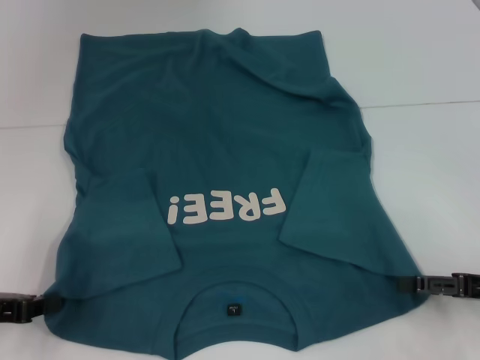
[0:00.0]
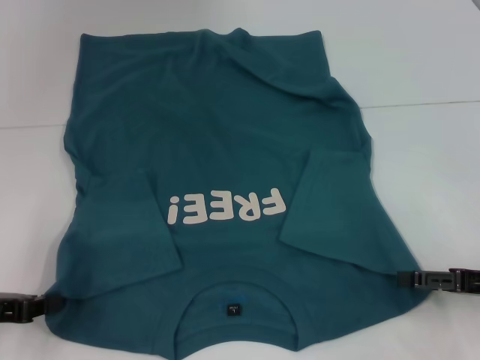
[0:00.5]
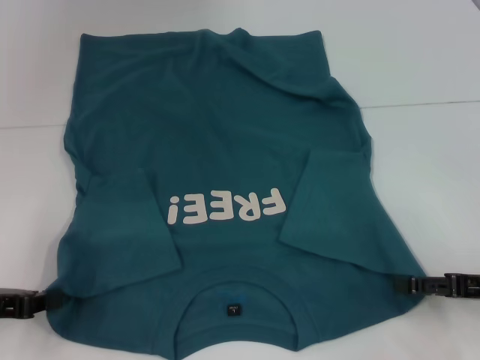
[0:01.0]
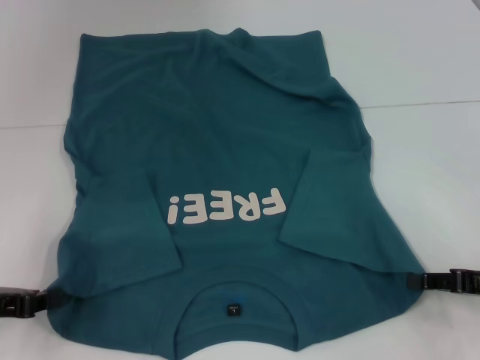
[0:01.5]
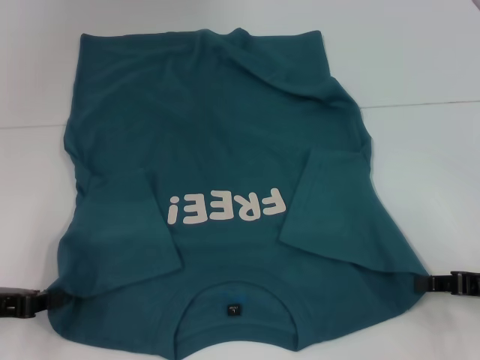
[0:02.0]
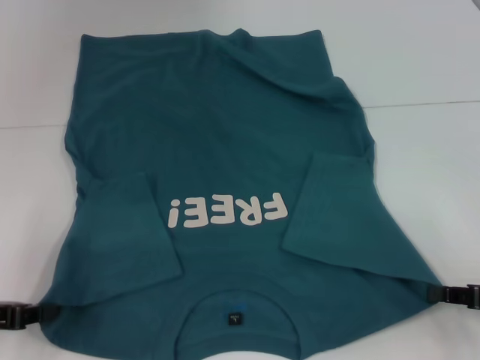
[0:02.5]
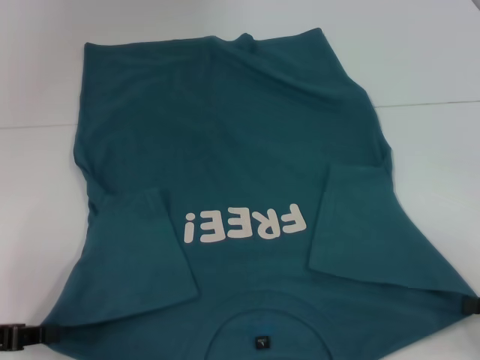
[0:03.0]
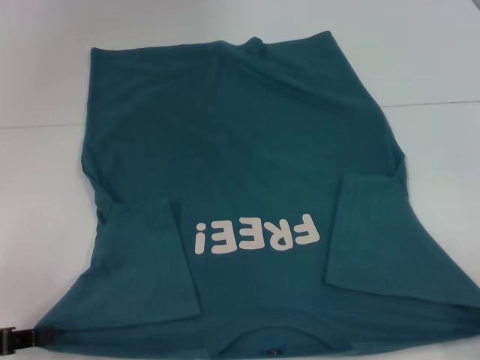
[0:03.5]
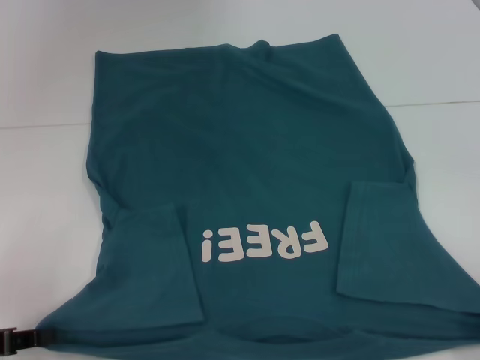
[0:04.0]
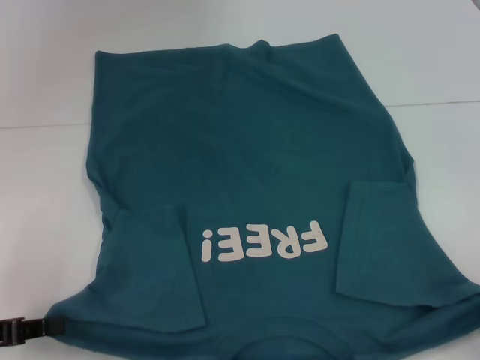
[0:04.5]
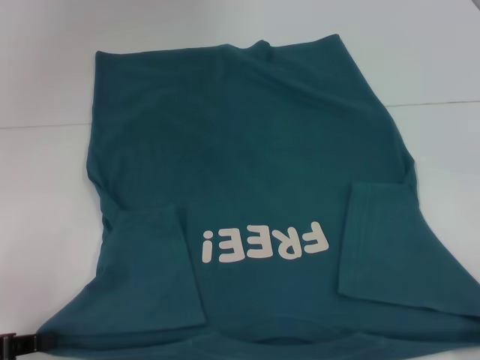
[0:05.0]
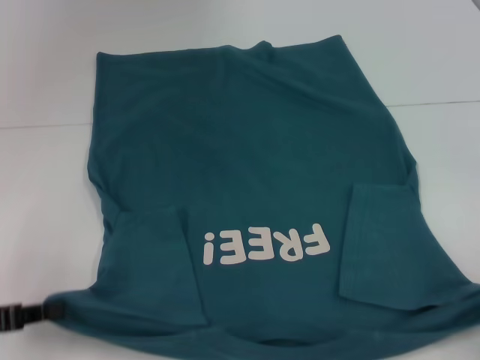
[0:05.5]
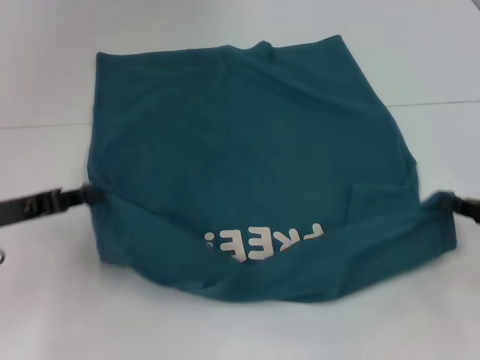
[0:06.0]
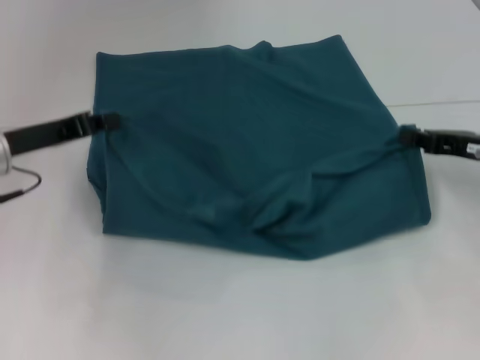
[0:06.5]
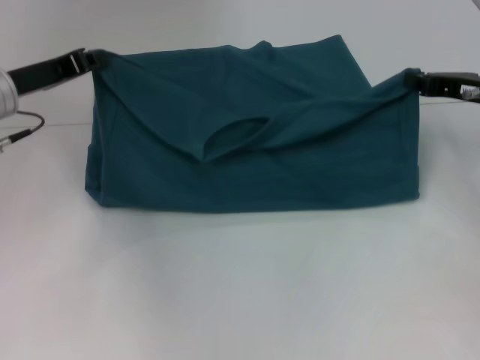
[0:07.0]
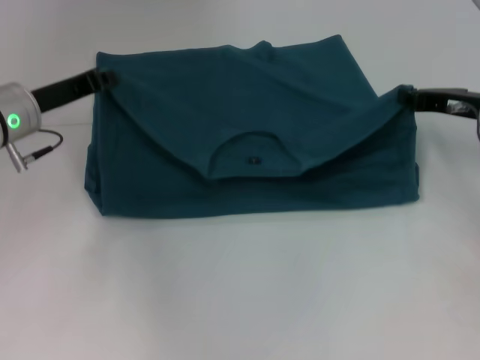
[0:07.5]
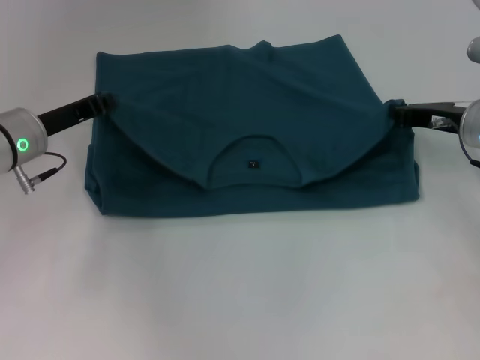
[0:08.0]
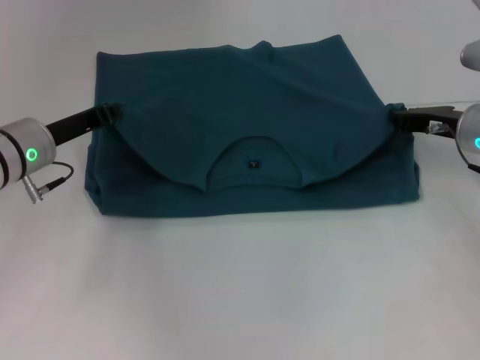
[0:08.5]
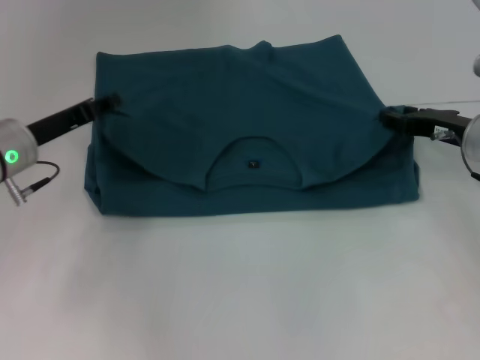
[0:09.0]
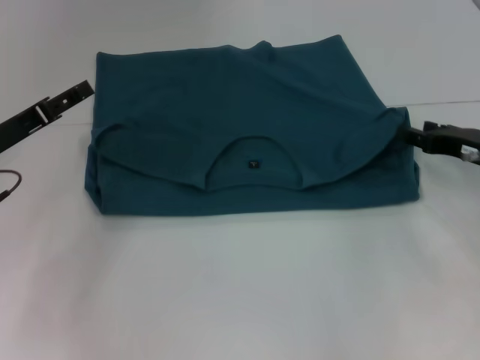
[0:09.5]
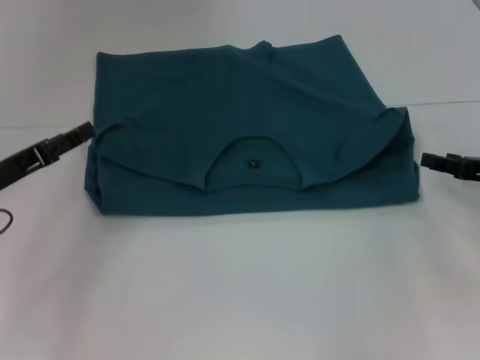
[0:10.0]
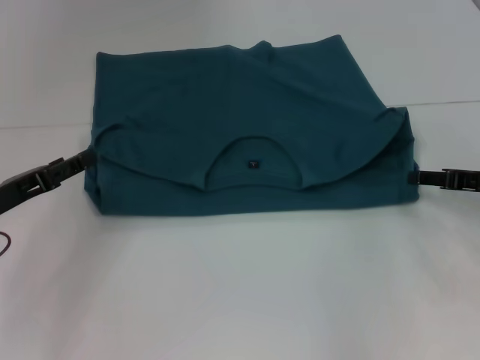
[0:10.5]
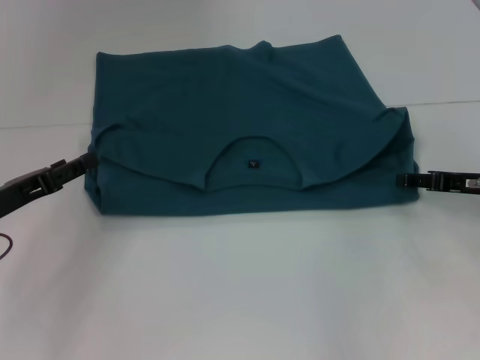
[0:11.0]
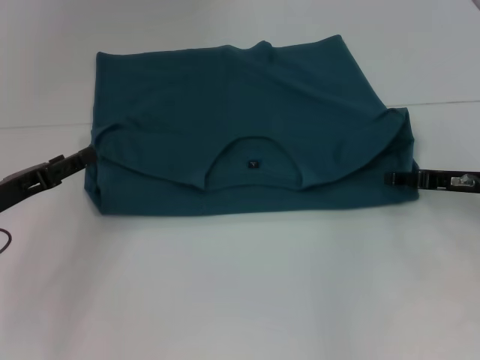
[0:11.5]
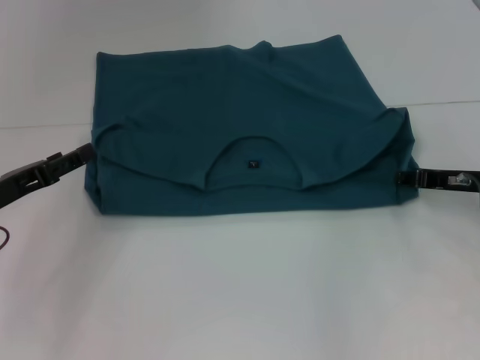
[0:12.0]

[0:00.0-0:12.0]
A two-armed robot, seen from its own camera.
Step, 0:00.0 to 0:02.0: Grab the bottom right corner with your right hand.
Step, 0:02.5 to 0:09.5: Fold the clothes to the left.
Step, 0:02.5 to 0:09.5: Fold the clothes to the right.
0:00.0 to 0:02.0: The right gripper closes.
0:02.0 to 0:04.0: The right gripper shifts roughly 10 cm backward and to the right.
0:04.0 to 0:06.0: Both grippers travel together forward, approximately 10 cm.
0:06.0 to 0:08.0: The left gripper heads forward and to the right, covering approximately 10 cm. Meanwhile the right gripper heads forward and to the left, covering roughly 15 cm.
0:08.0 to 0:10.0: The right gripper moves backward and to the right, about 10 cm, and opens; the left gripper heads backward and to the left, covering about 10 cm, and opens up.
0:10.0 to 0:12.0: The right gripper moves approximately 5 cm.

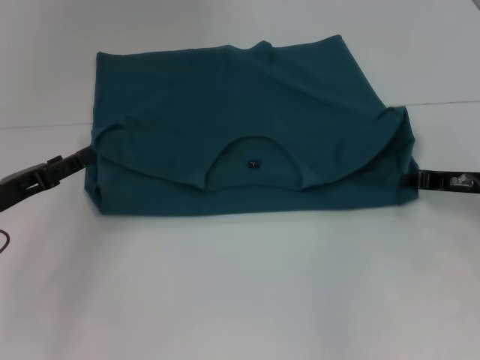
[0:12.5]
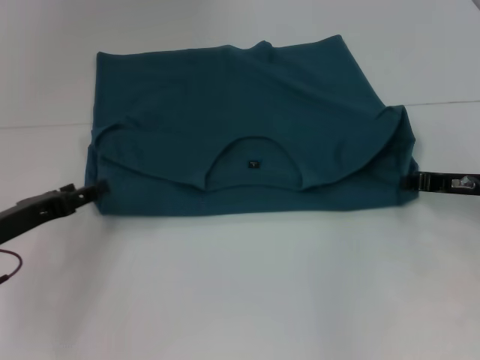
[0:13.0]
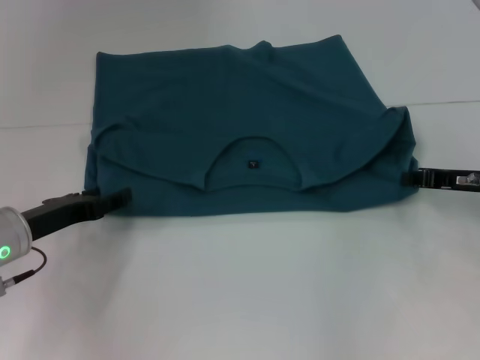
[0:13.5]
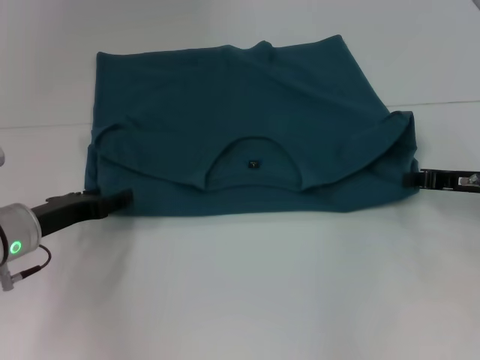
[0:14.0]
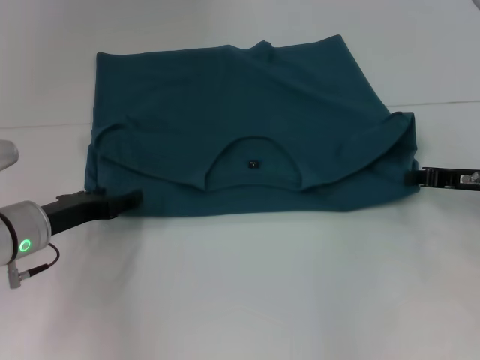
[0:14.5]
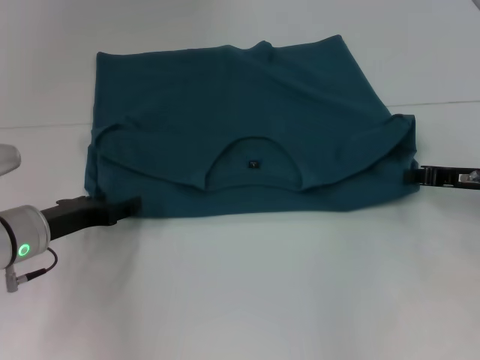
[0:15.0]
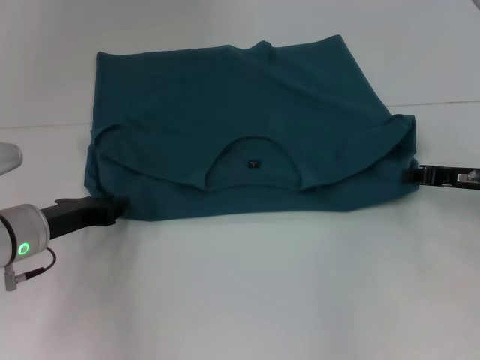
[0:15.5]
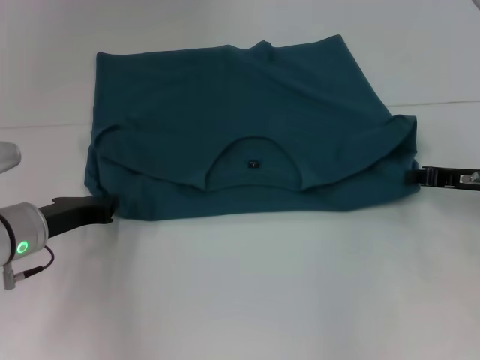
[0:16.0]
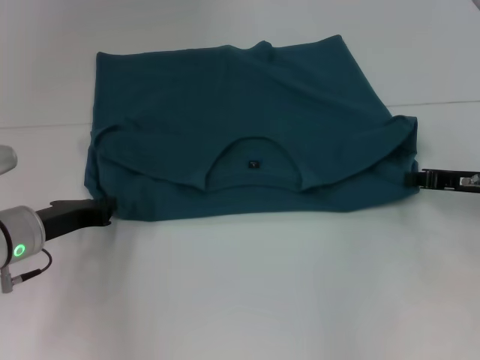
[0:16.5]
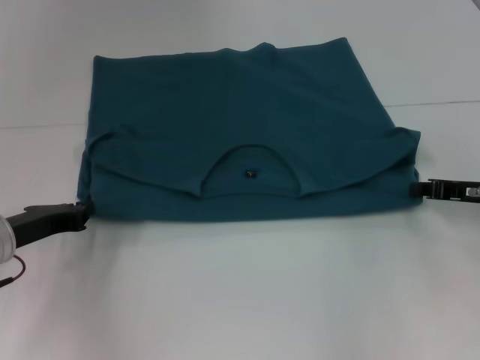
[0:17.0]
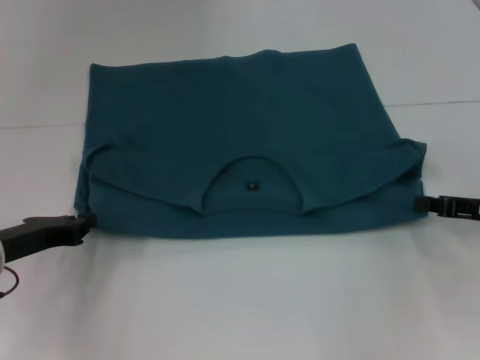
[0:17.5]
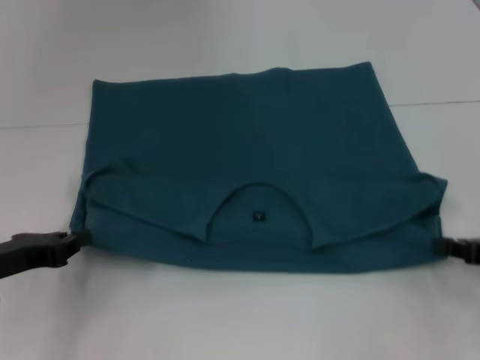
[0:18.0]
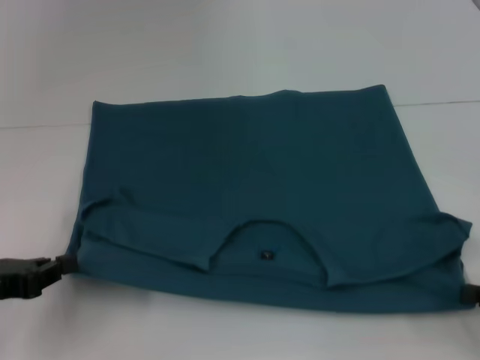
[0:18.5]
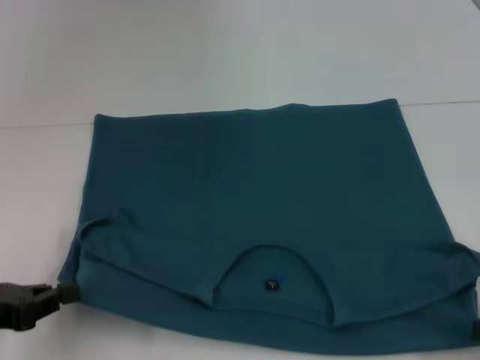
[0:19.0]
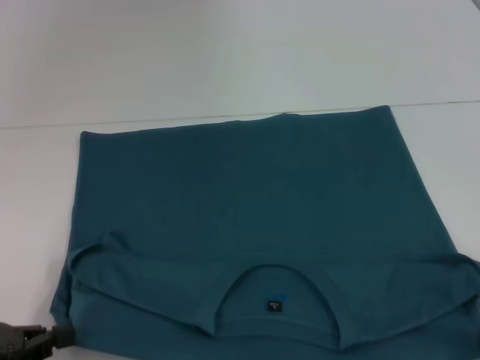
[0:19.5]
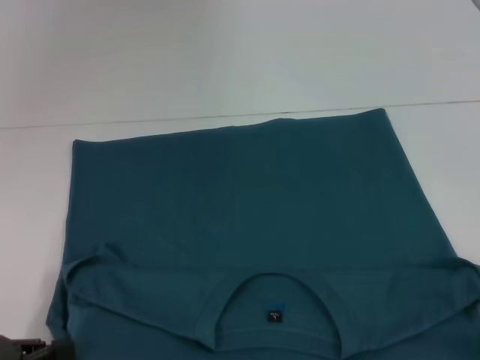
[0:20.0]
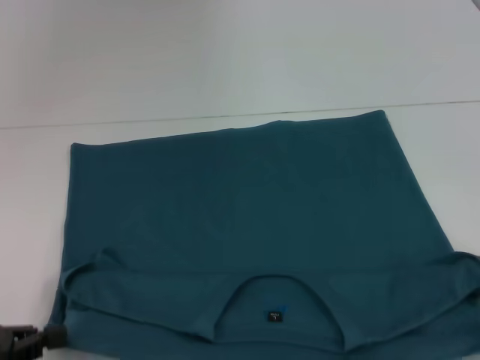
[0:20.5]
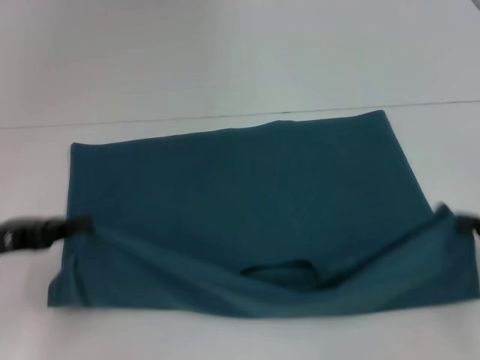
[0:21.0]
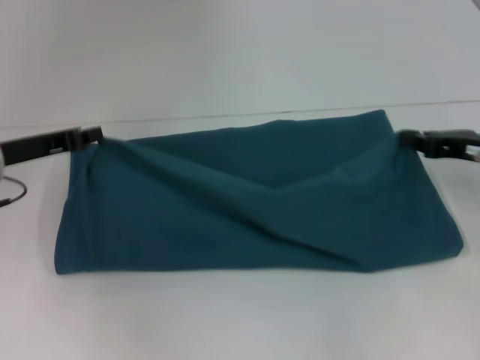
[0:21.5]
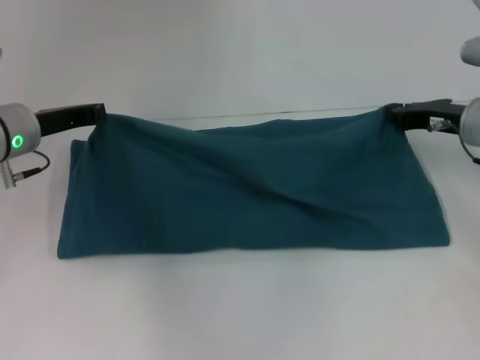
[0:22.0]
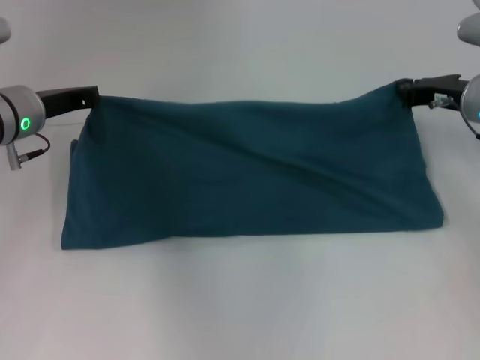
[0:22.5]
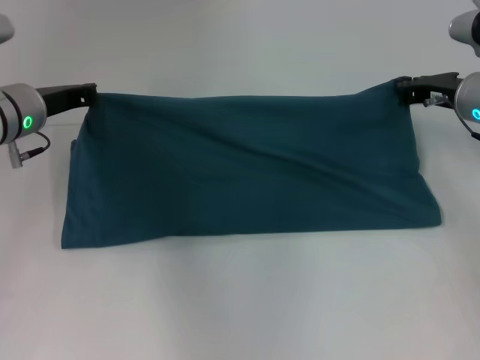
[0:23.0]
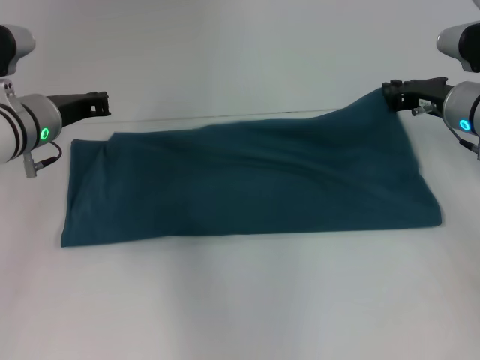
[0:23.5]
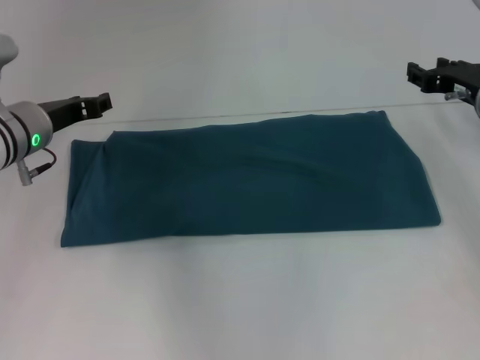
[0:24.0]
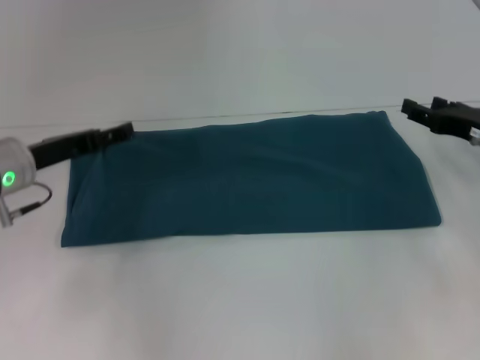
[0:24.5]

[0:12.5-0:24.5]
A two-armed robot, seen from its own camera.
Step, 0:12.5 to 0:20.0: Pull the clothes with your left hand.
Step, 0:12.5 to 0:20.0: Pull the clothes with your right hand.
Step, 0:20.5 to 0:24.0: Fold the clothes to the left.
Step, 0:20.5 to 0:24.0: Fold the clothes to the right.
0:12.5 to 0:14.5: The left gripper moves to the right, roughly 5 cm.
0:14.5 to 0:16.5: The left gripper closes its fingers.
0:16.5 to 0:18.5: The right gripper shifts about 15 cm backward, while the left gripper heads backward and to the left, covering some 10 cm.
0:18.5 to 0:20.5: The grippers both shift backward by roughly 5 cm.
0:20.5 to 0:22.5: The left gripper is displaced forward and to the right by roughly 25 cm. The right gripper shifts about 30 cm forward.
0:22.5 to 0:24.5: The two grippers go some 5 cm backward. The right gripper opens its fingers. The left gripper opens.

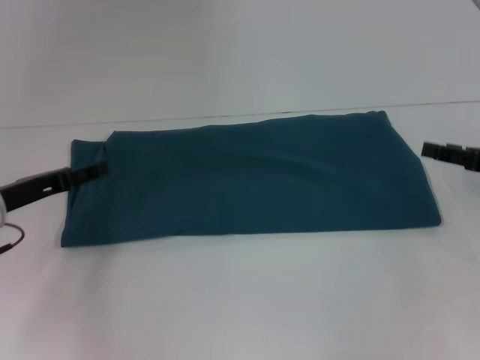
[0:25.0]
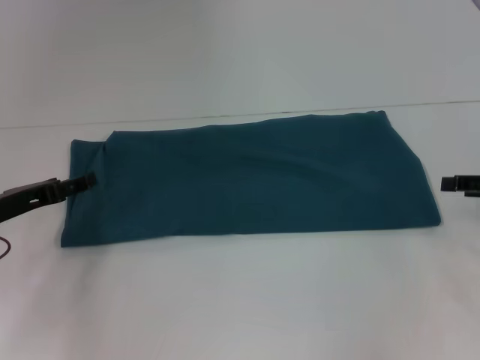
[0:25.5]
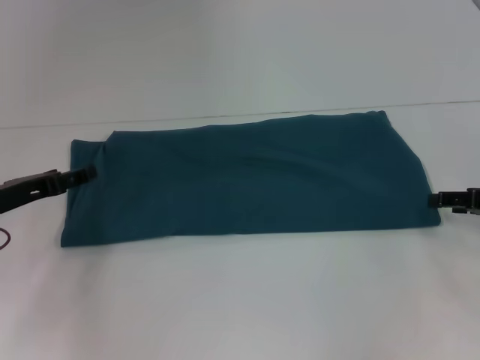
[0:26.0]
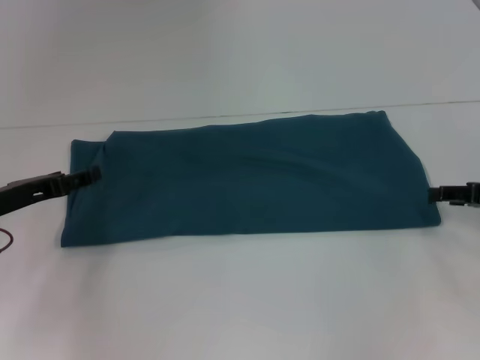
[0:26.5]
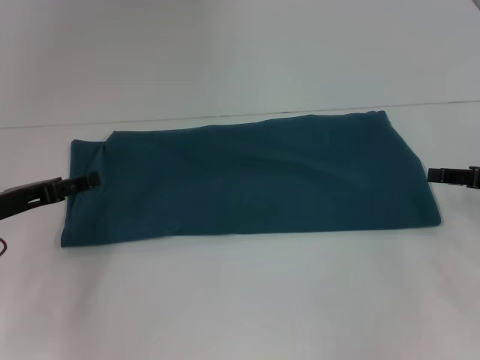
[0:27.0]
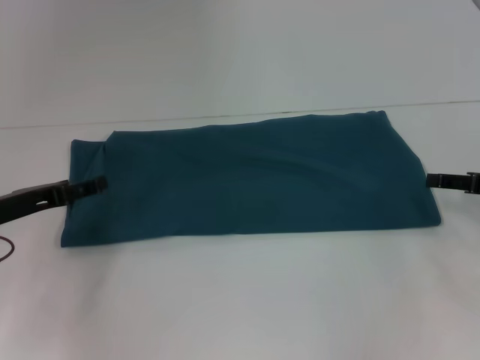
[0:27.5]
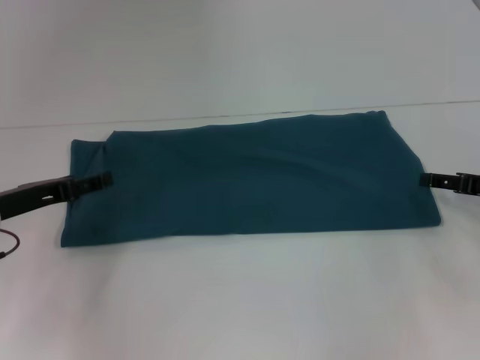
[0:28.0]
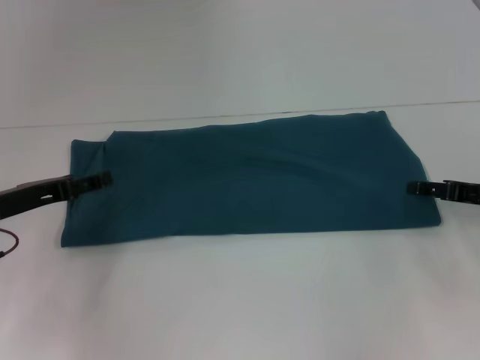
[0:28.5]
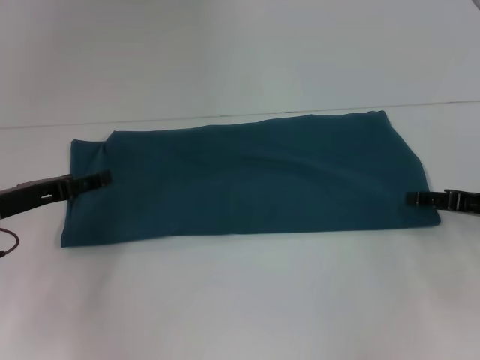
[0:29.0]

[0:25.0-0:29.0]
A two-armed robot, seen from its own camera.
0:25.0 to 0:29.0: There are only small adjustments of the grippers.
